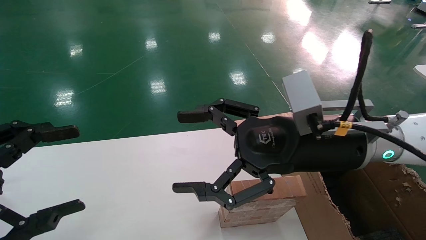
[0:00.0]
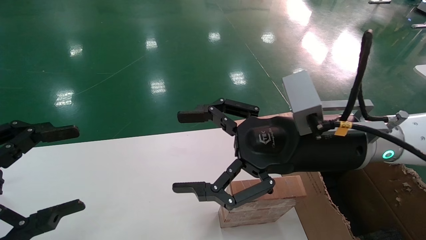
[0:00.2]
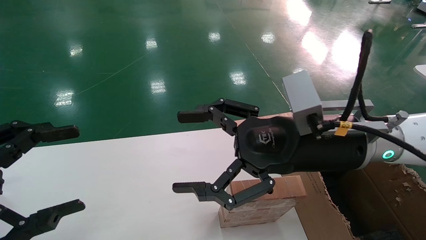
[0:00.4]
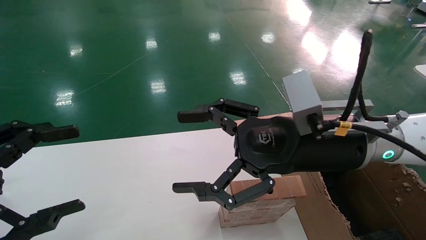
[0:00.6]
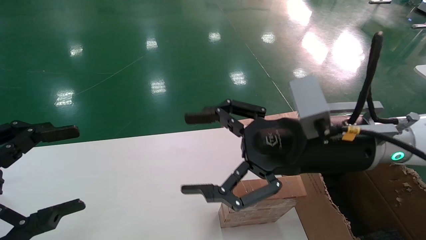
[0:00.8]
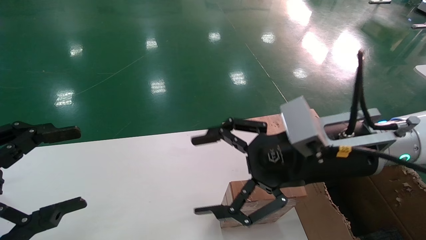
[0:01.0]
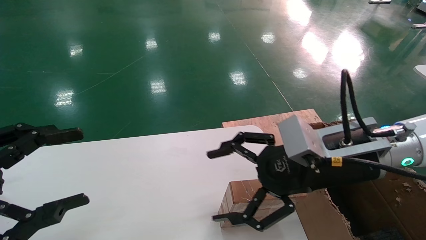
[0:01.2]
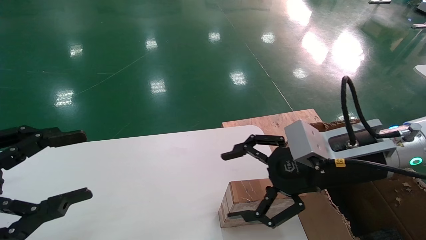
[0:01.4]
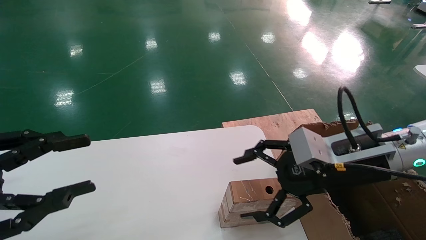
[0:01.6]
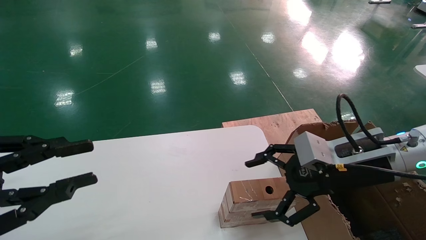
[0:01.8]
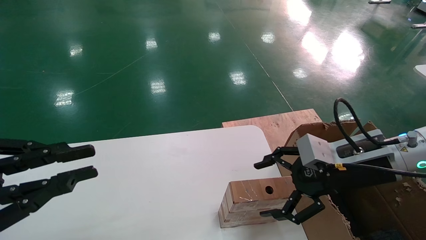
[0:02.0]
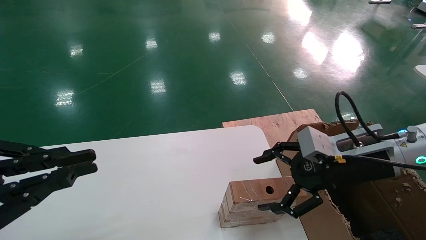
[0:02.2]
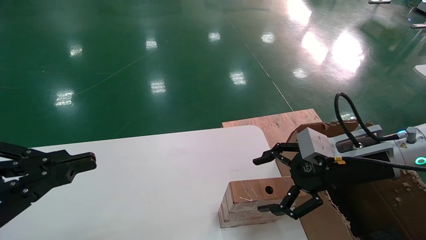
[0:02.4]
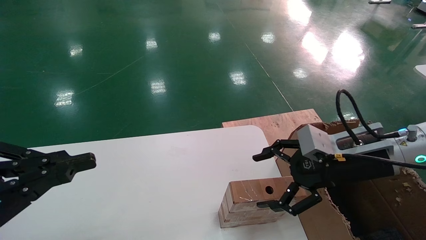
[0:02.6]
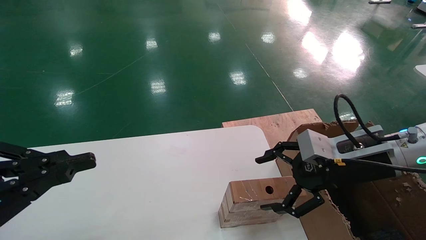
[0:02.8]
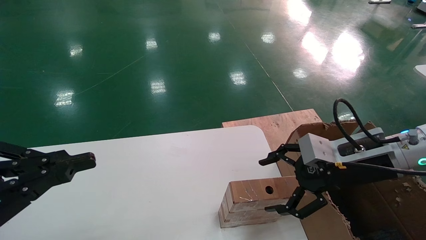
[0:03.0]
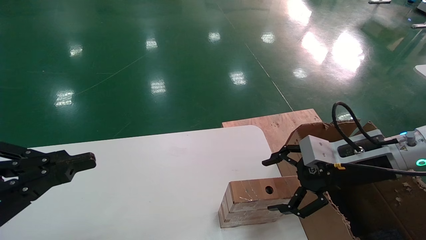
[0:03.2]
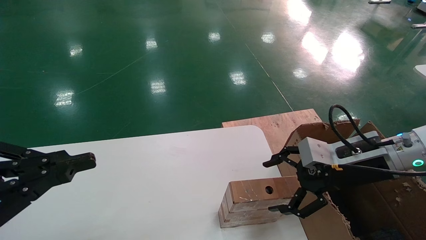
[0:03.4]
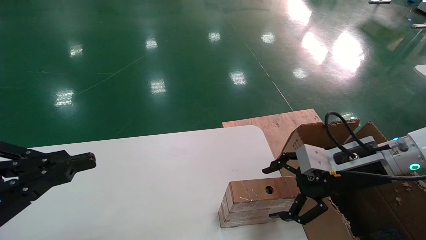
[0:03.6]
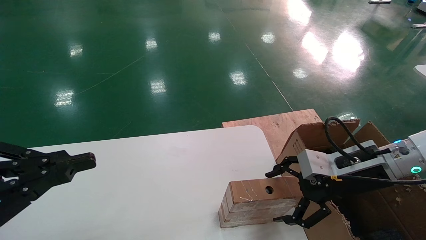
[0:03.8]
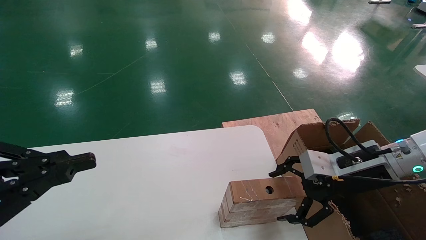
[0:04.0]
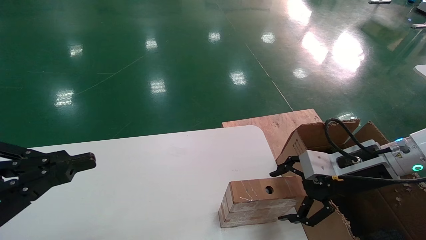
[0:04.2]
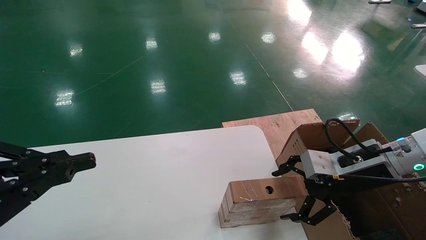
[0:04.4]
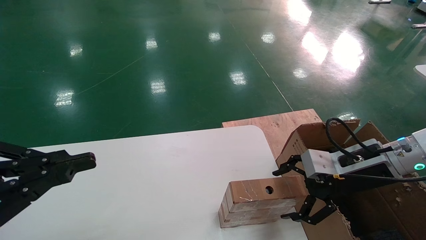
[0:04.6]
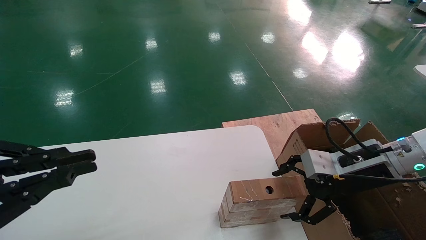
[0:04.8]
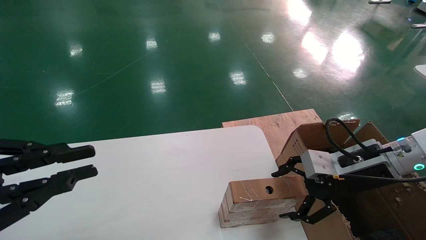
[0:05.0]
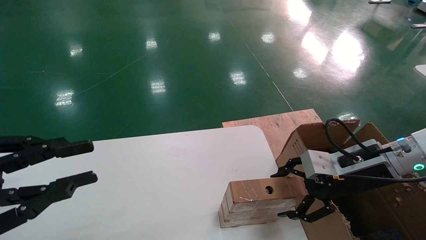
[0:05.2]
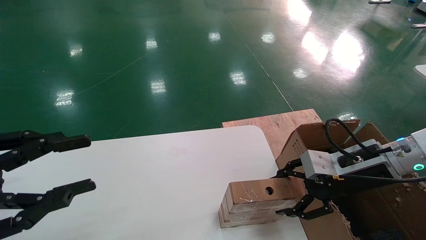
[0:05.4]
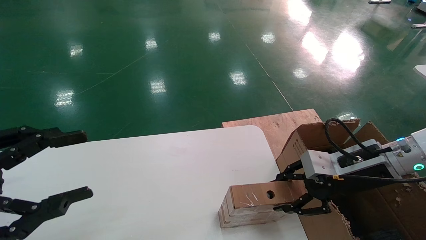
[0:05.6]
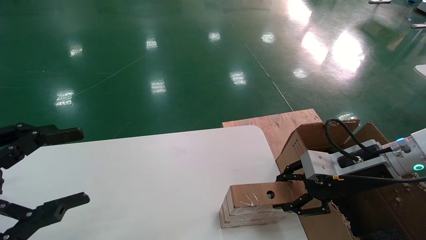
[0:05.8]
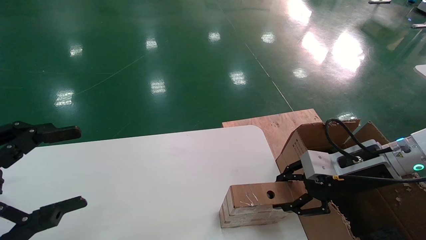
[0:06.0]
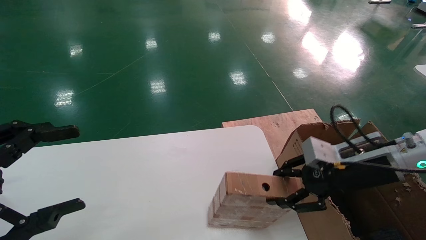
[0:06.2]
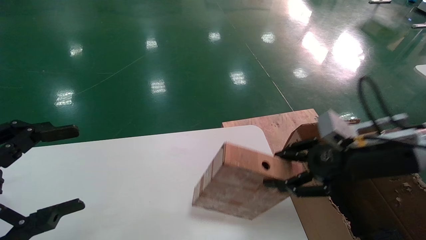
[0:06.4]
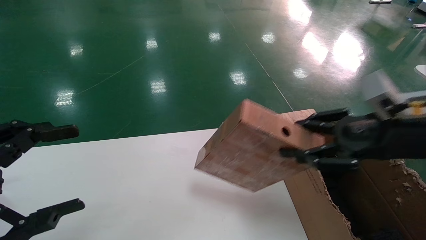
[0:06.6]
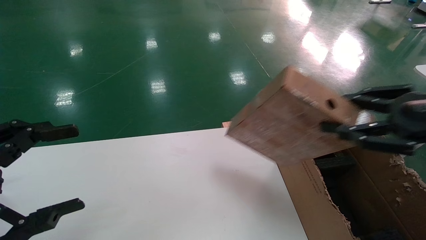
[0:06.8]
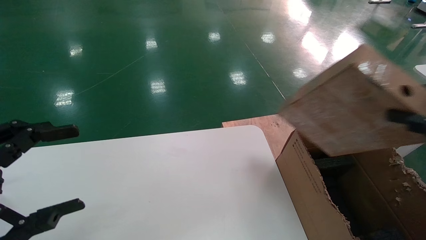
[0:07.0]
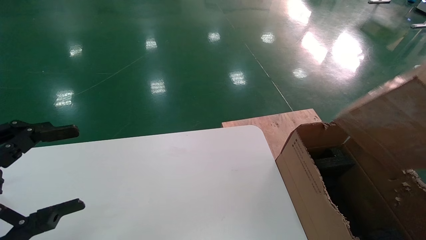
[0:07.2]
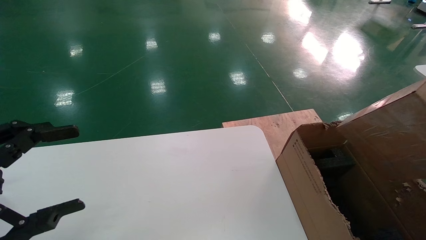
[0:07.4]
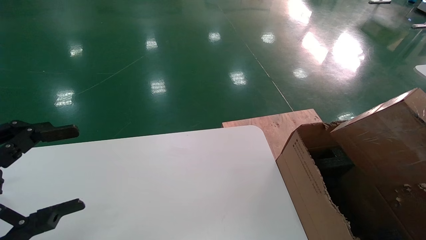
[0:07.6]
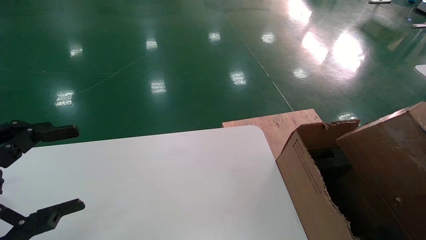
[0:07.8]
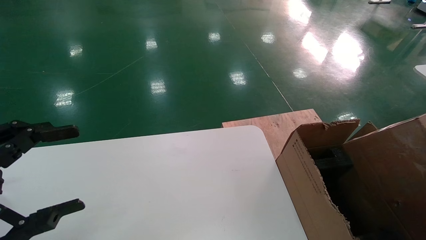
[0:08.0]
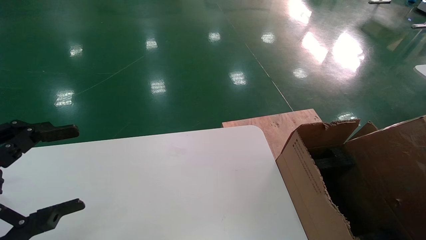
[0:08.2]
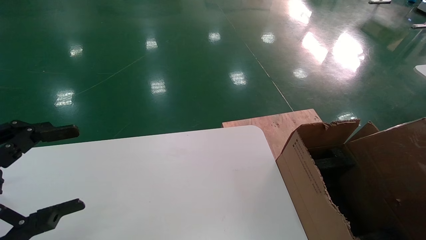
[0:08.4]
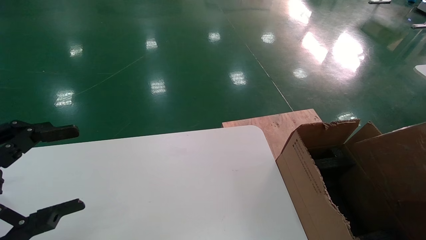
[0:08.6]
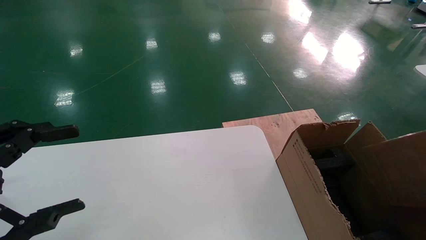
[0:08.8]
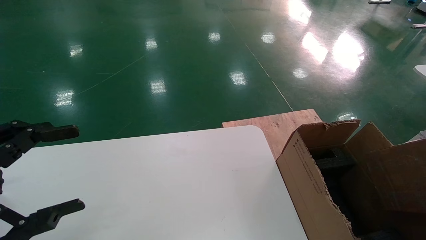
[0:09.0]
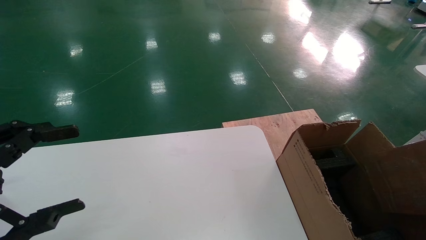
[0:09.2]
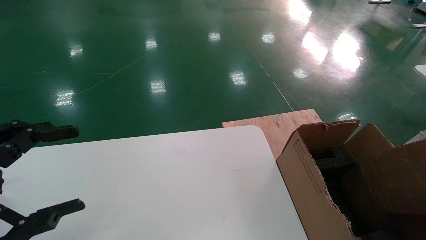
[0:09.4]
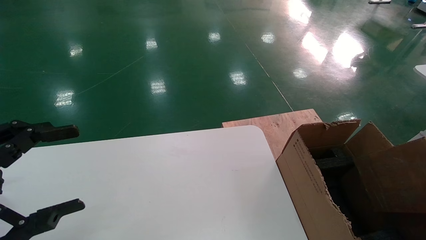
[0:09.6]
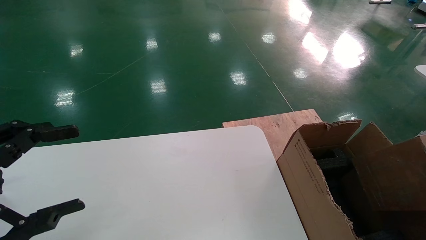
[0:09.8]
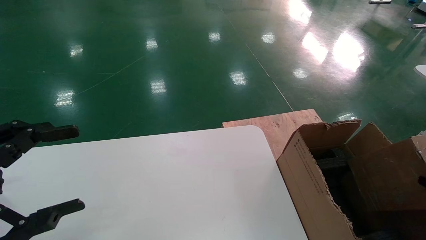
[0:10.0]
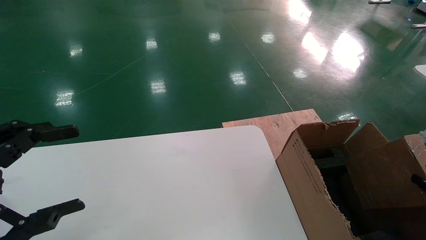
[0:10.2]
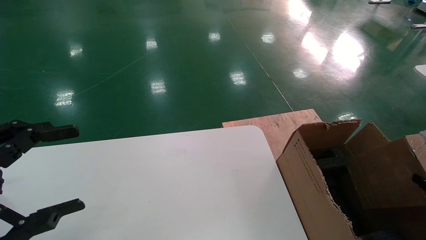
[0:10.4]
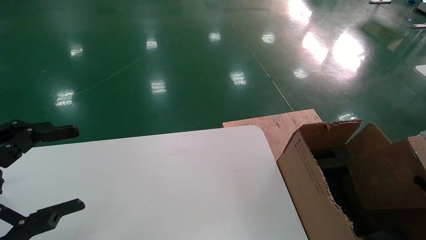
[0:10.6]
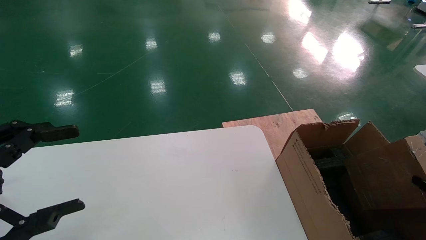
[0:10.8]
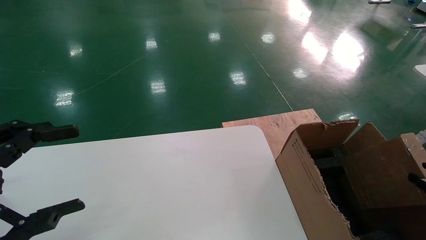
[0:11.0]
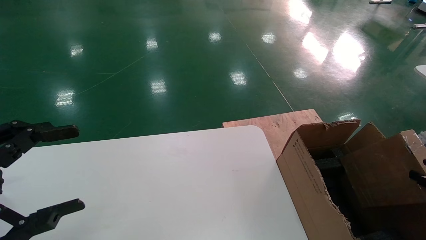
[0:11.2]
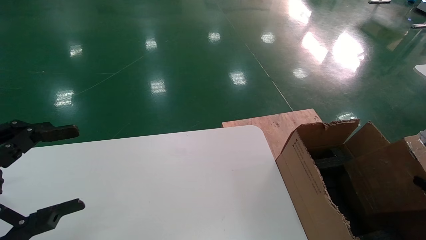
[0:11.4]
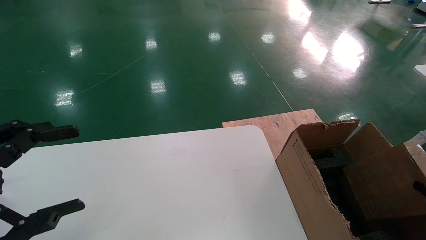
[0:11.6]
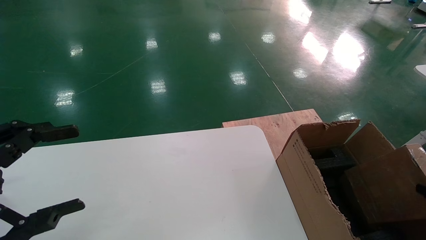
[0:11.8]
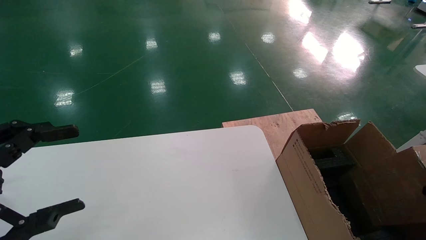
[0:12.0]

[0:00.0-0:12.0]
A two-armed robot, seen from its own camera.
Task of the whole recording: put the box on the table into the big box.
Step, 0:01.2 to 0:05.8: Pick up the mouse and the power cord paper box.
0:00.0 to 0:01.6: The left gripper closes. Meanwhile the right gripper goes approximately 5 cm to the right.
0:01.6 to 0:03.0: The right gripper changes place by some 5 cm; the left gripper closes.
0:03.0 to 0:04.4: The grippers stay close to where they were, moving slightly.
0:04.4 to 0:06.0: The left gripper opens up, while the right gripper closes up.
0:06.0 to 0:07.6: The right gripper moves backward and to the right, about 30 cm.
0:07.6 to 0:09.0: The right gripper heads downward and to the right, covering some 15 cm.

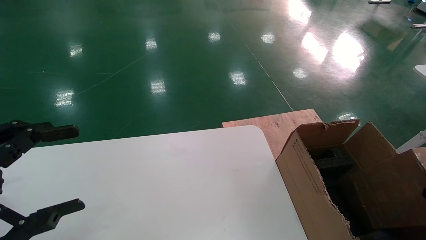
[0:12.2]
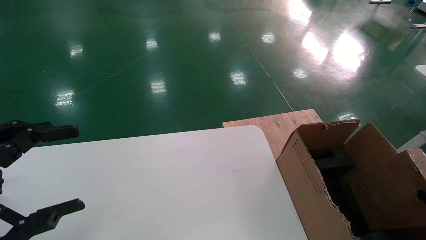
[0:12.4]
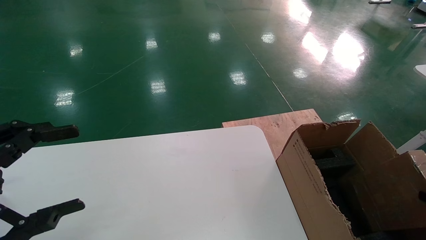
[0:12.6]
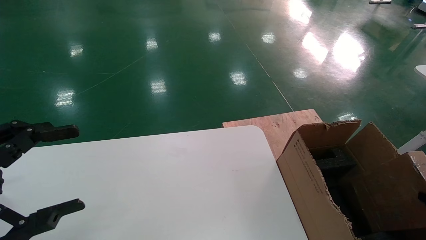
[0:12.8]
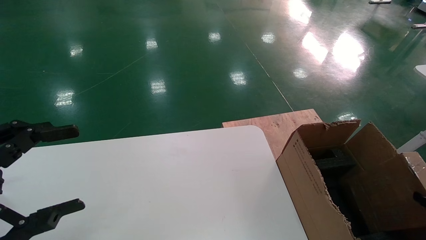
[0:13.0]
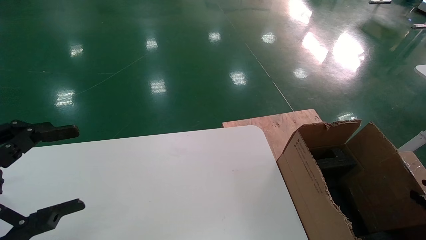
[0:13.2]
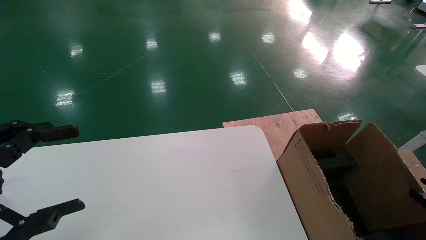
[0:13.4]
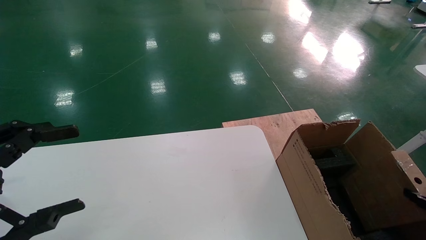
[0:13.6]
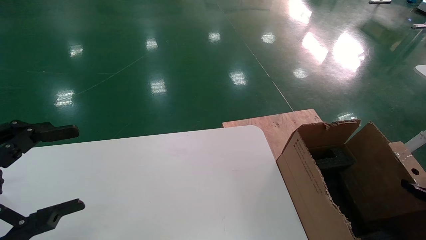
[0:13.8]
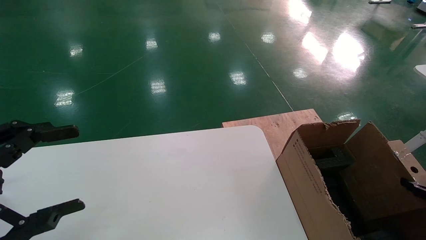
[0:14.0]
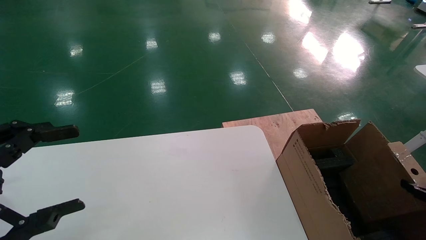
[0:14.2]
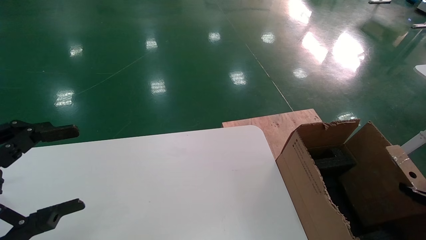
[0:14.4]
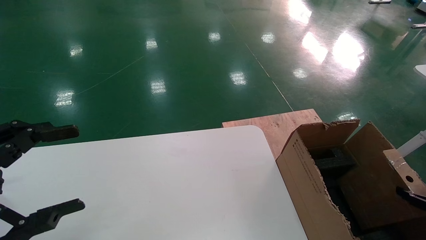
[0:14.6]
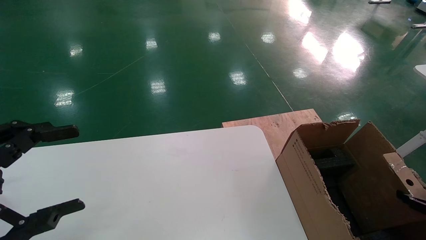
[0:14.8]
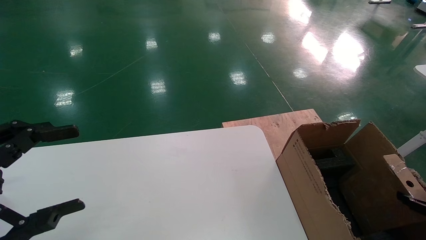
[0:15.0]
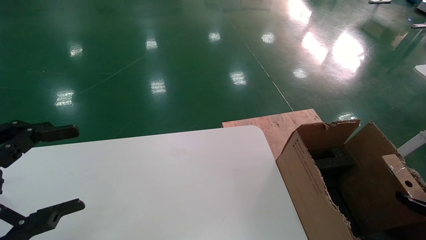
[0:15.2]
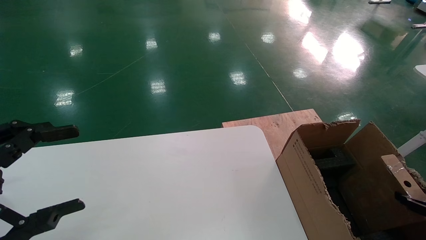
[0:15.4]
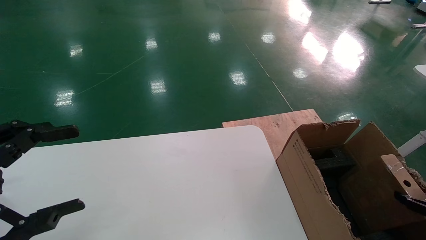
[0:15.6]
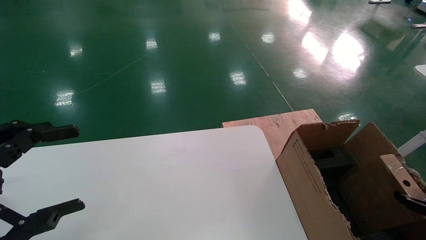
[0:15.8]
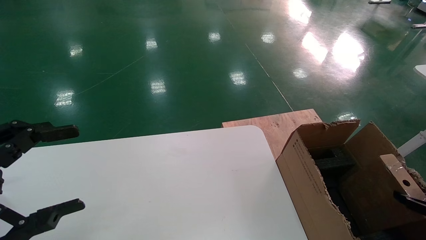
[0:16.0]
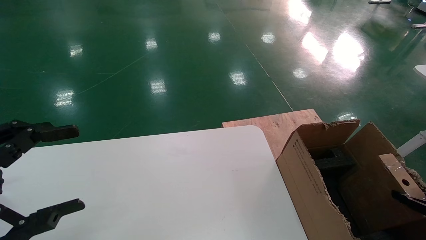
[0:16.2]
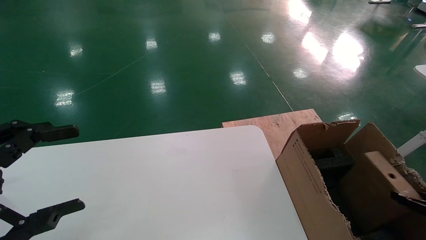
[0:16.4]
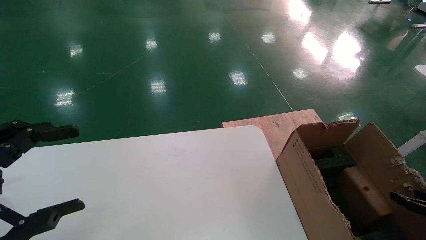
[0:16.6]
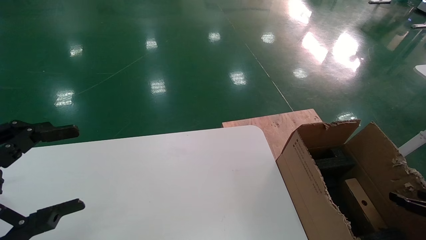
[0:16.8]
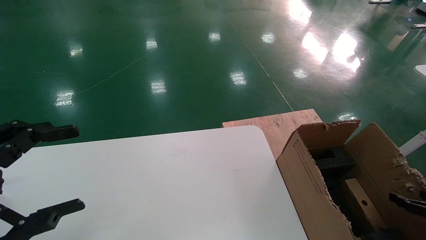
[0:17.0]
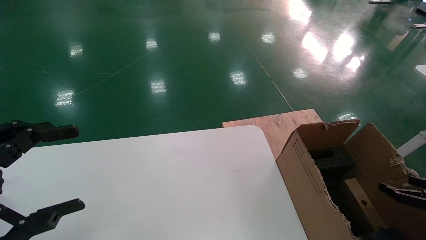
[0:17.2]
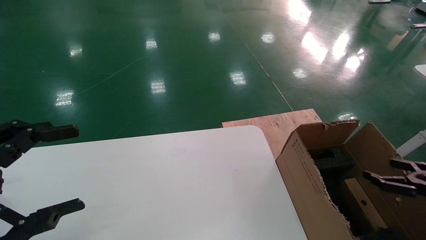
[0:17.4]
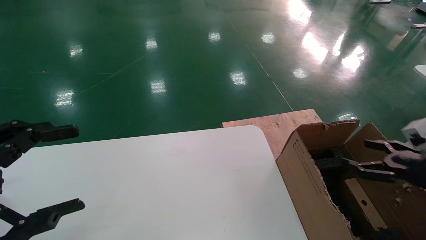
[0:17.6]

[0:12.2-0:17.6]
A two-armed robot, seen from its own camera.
Task of the whole recording: put the box on the table into the big box.
Step, 0:12.2 to 0:16.6: Place the mouse and the power cord paper box into the container.
0:12.2 to 0:15.0: The grippers move only a little.
0:15.0 to 0:16.2: Both grippers stay put.
0:16.2 to 0:17.6: The right gripper travels upward, to the left and forward by some 15 cm, and opens up.
